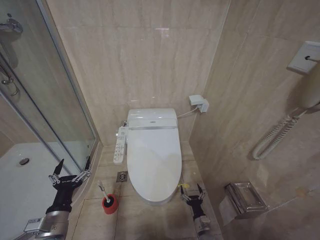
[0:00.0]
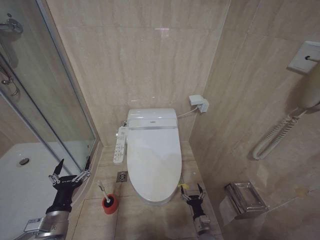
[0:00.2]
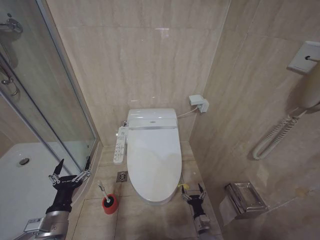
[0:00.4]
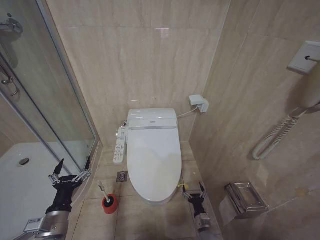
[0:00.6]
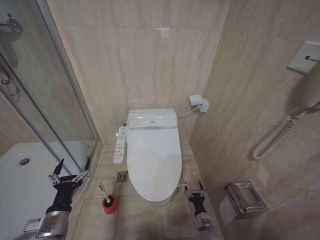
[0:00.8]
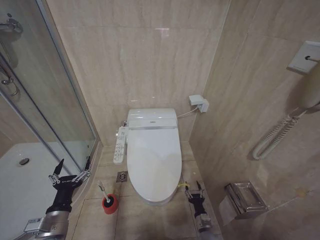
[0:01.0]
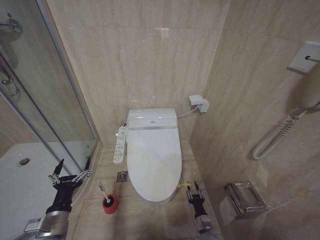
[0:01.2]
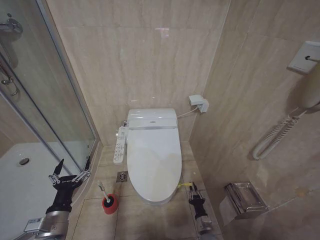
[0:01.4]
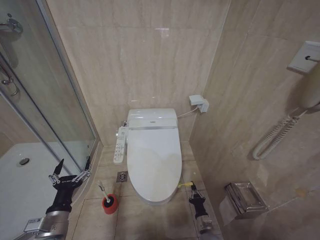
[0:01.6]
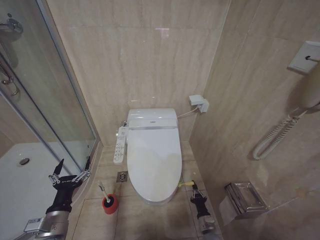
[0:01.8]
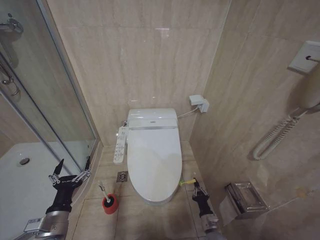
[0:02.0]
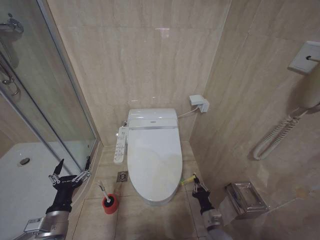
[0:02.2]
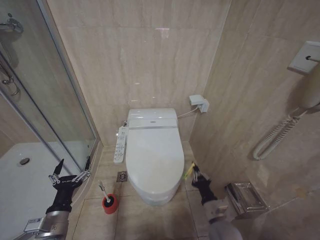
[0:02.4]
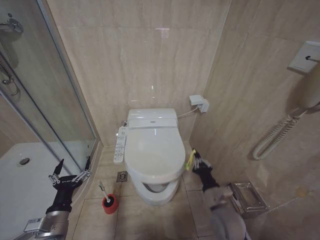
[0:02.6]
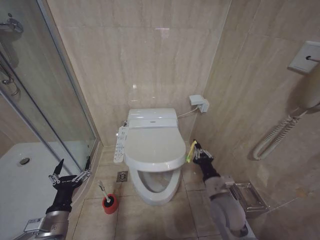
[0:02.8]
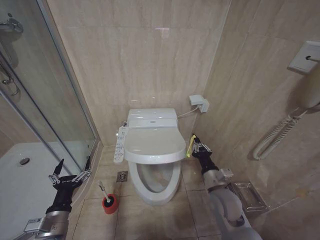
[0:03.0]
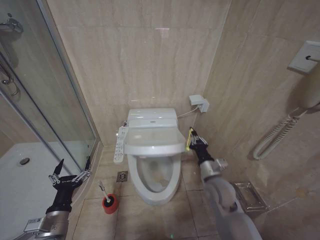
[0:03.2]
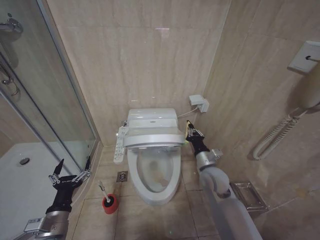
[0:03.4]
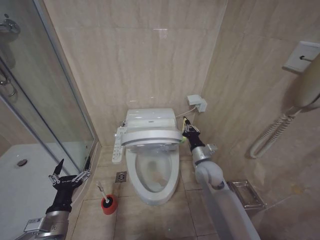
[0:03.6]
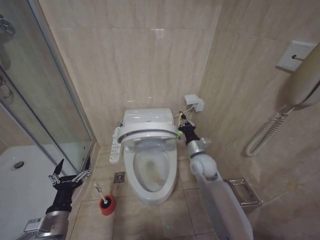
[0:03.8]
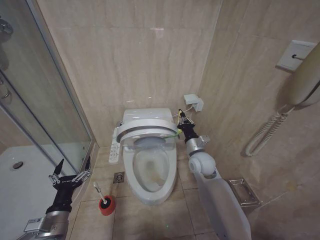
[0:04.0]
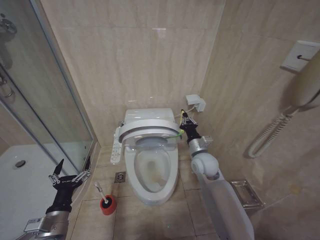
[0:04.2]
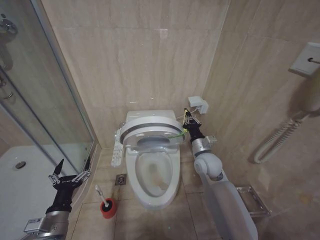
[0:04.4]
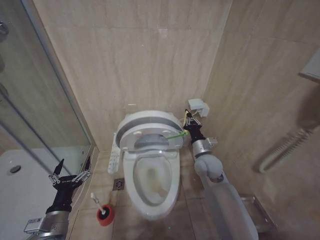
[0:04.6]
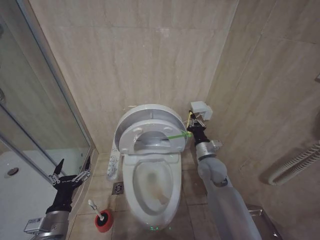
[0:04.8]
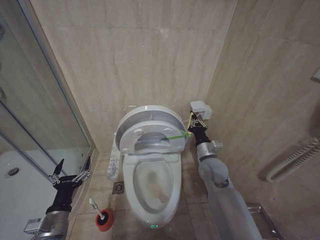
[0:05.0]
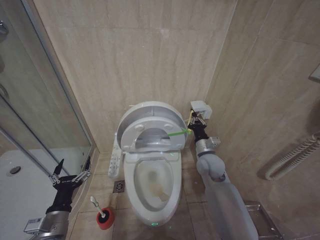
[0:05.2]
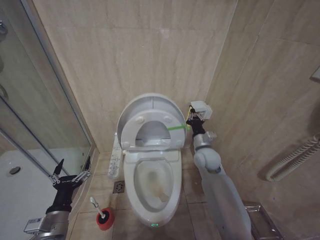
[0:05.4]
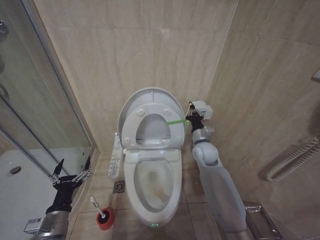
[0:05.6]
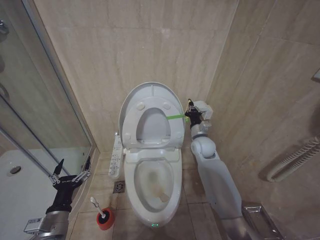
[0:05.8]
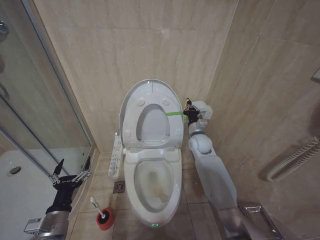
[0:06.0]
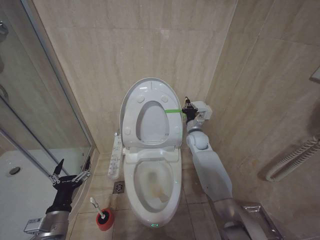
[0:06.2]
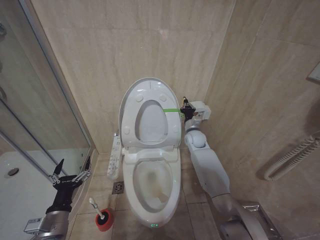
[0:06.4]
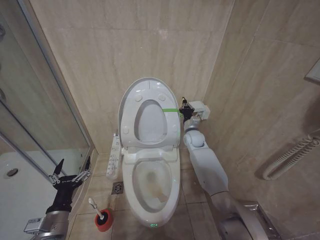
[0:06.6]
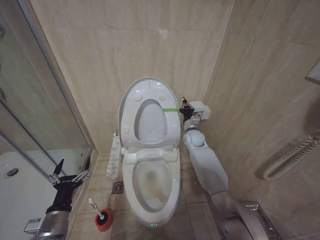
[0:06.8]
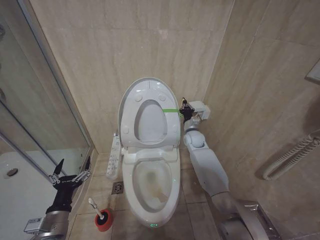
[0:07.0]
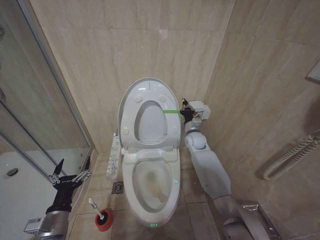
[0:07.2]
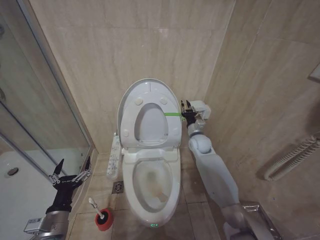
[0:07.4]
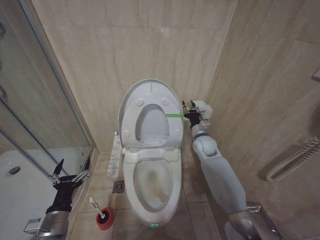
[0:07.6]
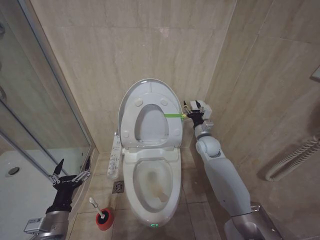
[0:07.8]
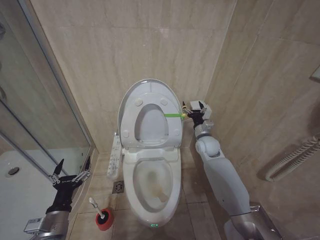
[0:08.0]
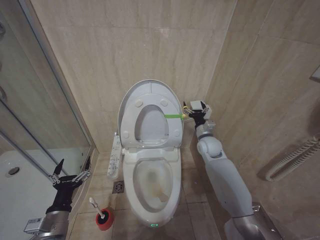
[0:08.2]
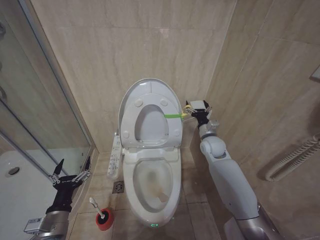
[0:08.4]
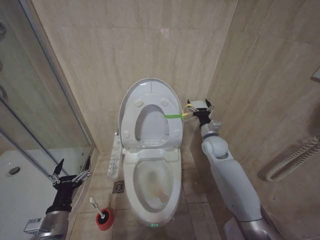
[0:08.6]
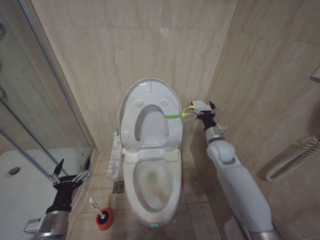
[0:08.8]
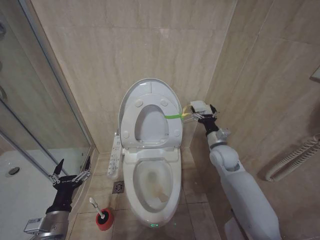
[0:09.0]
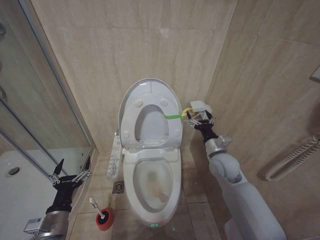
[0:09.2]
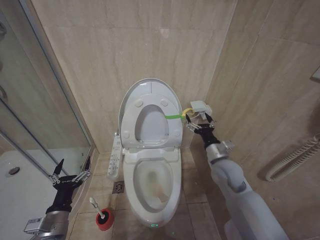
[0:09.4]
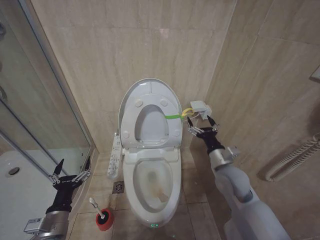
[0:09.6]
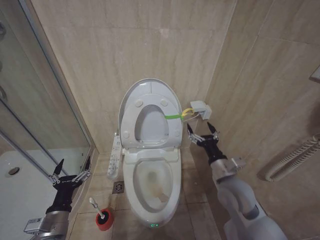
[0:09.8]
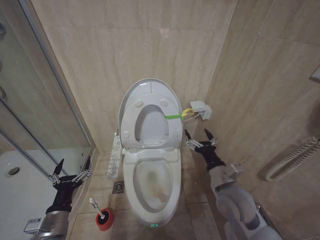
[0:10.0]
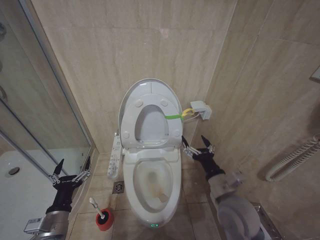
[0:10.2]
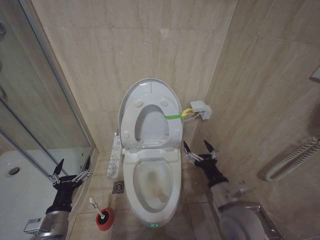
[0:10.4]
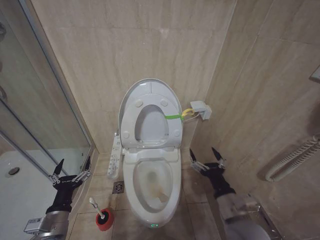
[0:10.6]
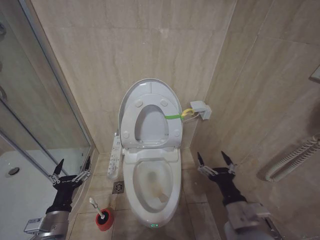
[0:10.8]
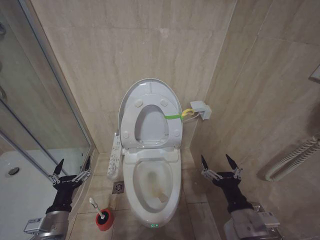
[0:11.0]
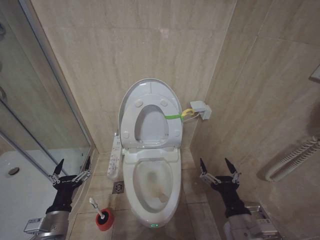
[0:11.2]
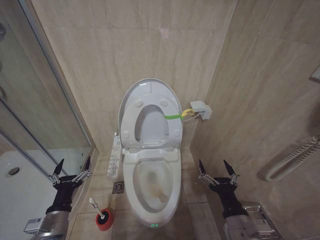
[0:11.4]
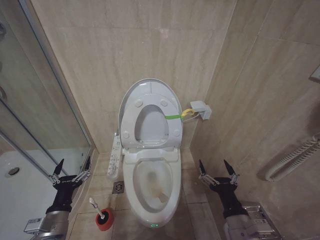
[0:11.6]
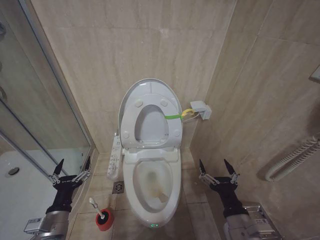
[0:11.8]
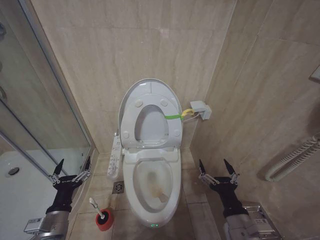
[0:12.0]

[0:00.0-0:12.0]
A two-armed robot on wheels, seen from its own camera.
Task of the whole recording: Open the toilet lid, clean the toilet bowl with a toilet brush, close the toilet lid, and flush.
0:01.6 to 0:03.0: The right gripper shifts approximately 30 cm upward.
0:03.0 to 0:04.4: The right gripper is displaced forward and upward by approximately 15 cm.
0:04.4 to 0:06.0: The right gripper goes roughly 10 cm forward.
0:06.0 to 0:07.6: The grippers stay close to where they were, moving slightly.
0:07.6 to 0:09.0: The right gripper is displaced backward by about 10 cm, and opens its fingers.
0:09.0 to 0:10.4: The right gripper is displaced backward by some 20 cm.
0:10.4 to 0:12.0: The right gripper travels backward by roughly 10 cm.

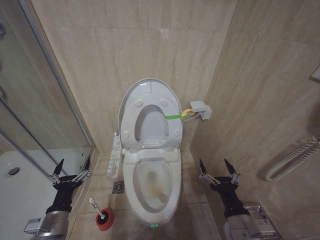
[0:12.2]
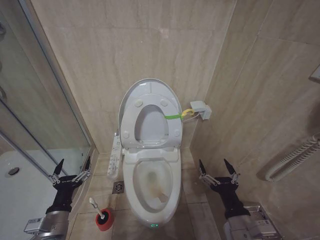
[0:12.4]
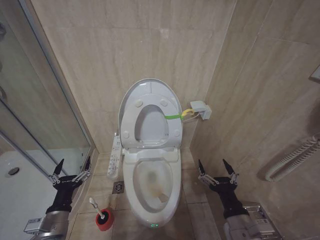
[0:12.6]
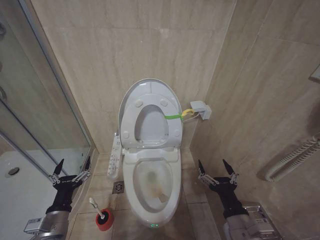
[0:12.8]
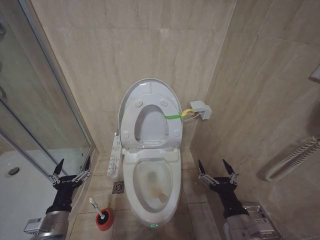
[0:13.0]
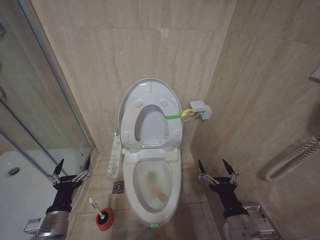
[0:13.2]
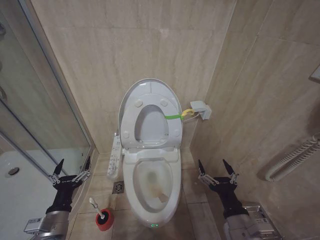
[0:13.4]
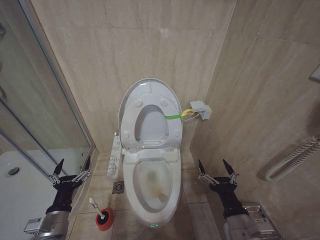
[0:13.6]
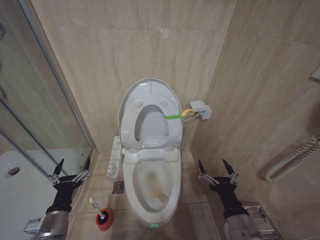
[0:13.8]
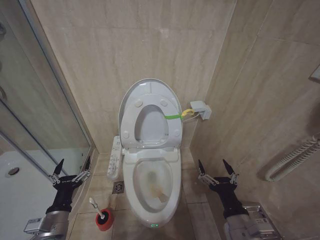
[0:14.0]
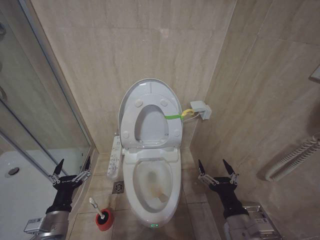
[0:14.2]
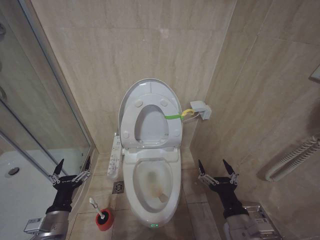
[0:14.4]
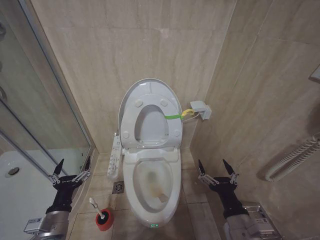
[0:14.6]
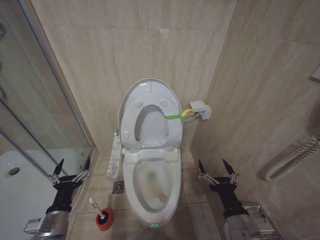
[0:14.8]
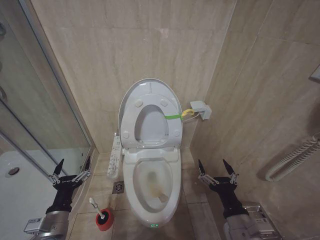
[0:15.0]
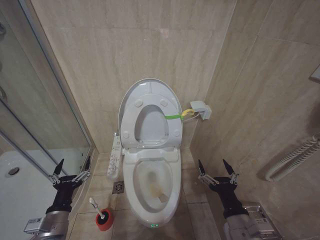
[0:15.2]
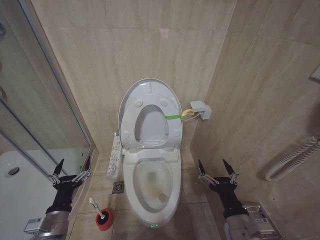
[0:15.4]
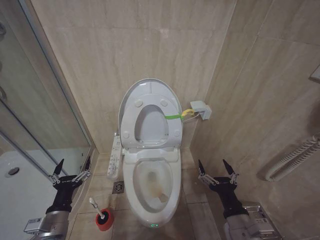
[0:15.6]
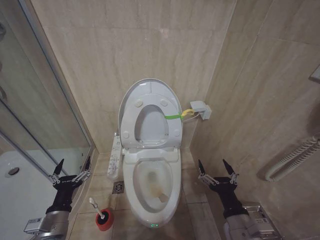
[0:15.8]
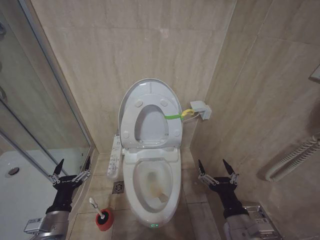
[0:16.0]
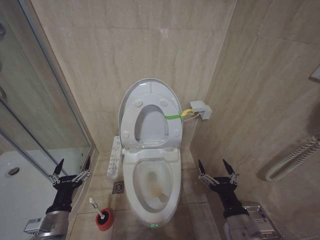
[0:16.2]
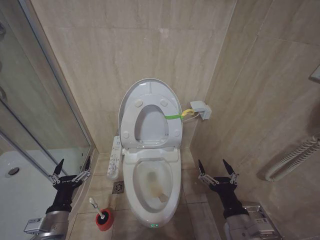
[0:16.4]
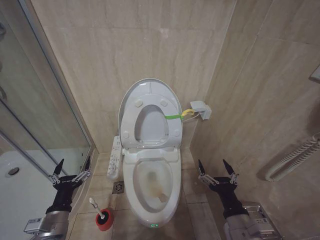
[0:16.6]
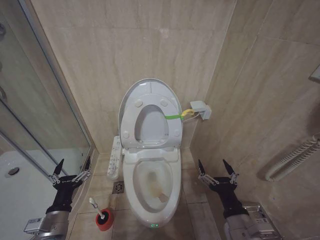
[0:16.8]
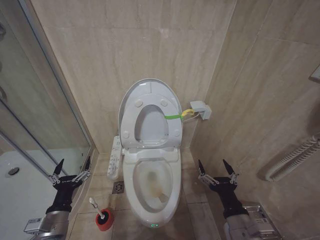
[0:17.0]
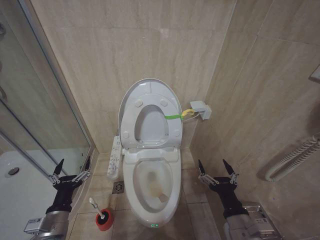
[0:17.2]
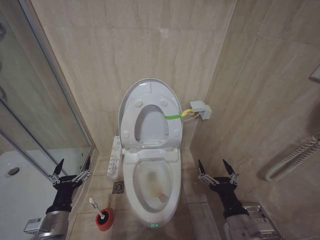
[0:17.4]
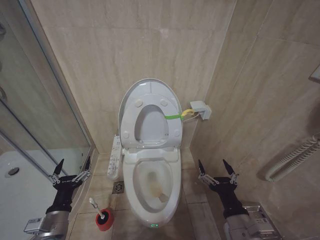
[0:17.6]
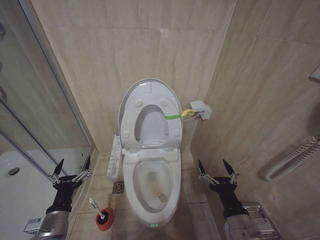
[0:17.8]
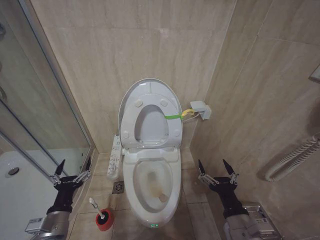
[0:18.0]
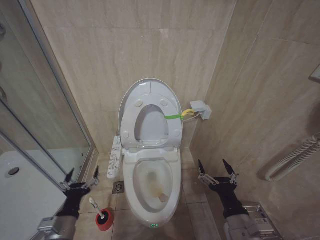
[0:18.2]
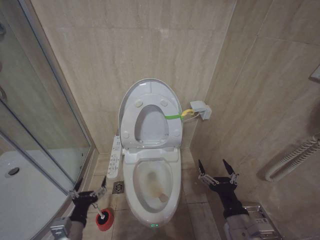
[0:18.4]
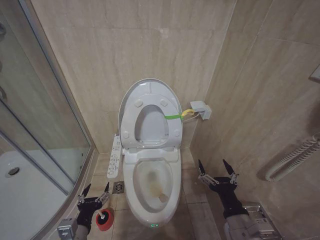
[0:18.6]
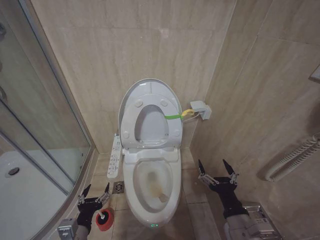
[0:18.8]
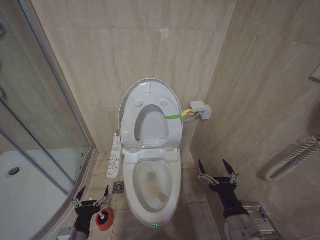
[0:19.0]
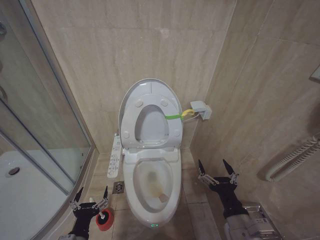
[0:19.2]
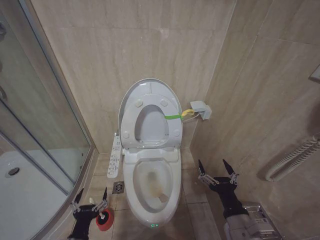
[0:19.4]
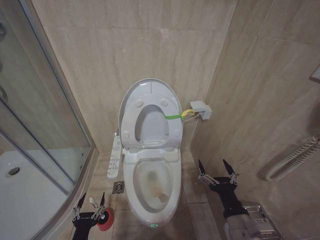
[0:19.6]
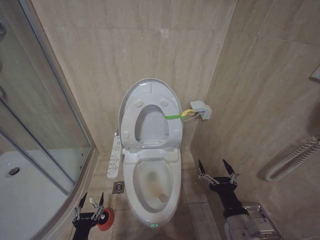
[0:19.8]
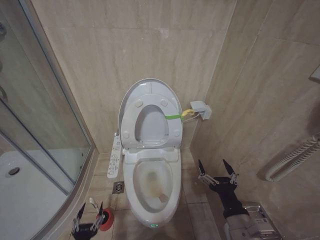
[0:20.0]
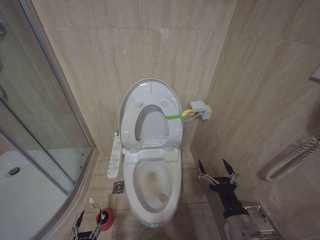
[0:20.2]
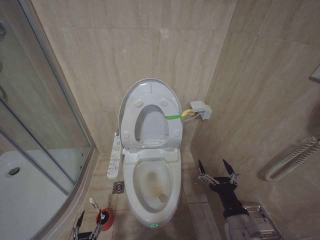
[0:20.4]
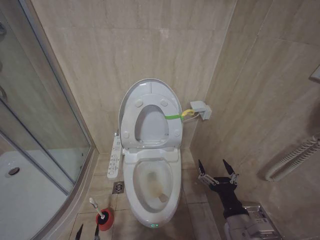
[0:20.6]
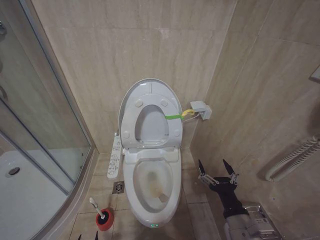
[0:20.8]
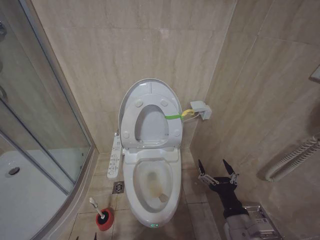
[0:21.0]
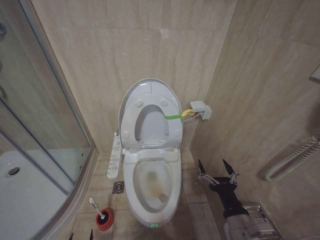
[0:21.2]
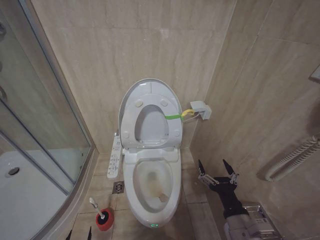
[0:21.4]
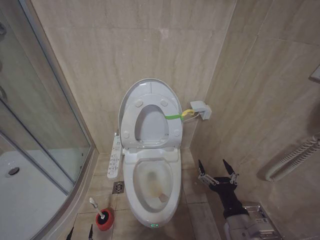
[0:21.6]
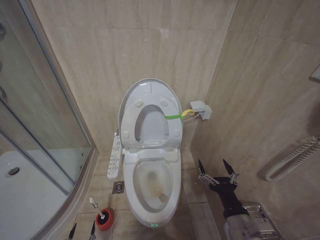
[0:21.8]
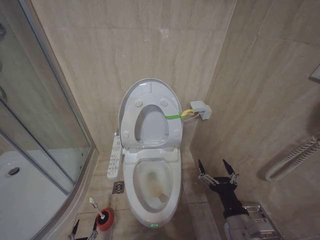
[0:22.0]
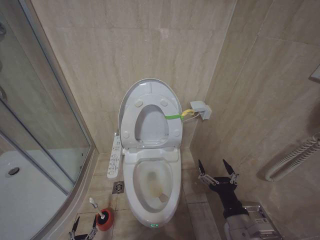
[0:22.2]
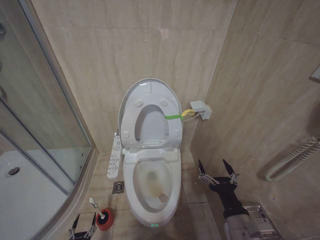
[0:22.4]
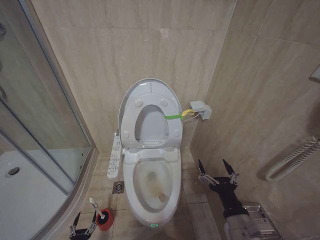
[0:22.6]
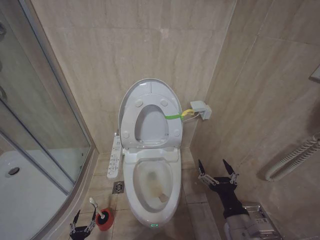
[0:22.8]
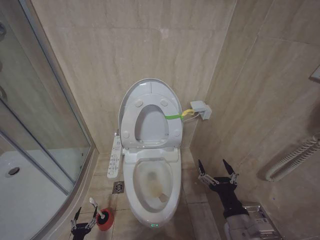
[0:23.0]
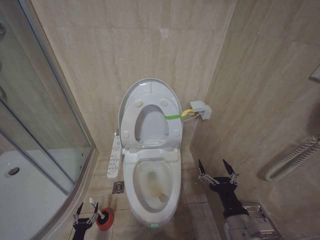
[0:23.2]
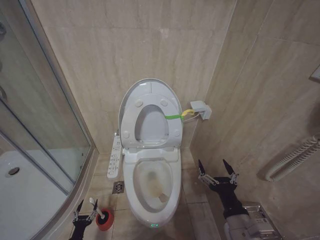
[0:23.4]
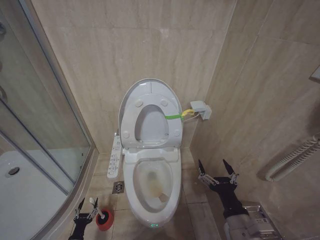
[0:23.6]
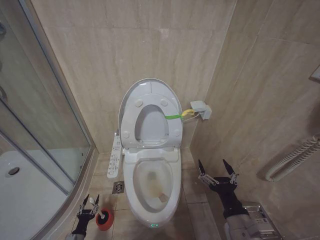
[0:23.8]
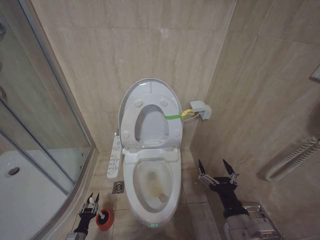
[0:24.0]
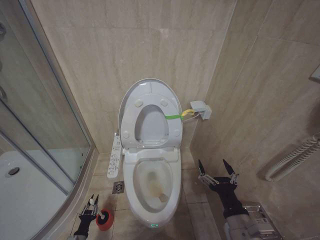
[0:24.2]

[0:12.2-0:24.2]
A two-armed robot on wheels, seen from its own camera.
Task of the whole recording: Open the toilet lid, clean the toilet bowl with a toilet brush, close the toilet lid, and flush.
0:12.2 to 0:16.6: Both grippers stay about where they are.
0:16.6 to 0:18.2: The grippers move only a little.
0:18.2 to 0:19.8: The left gripper shifts some 10 cm downward and backward.
0:19.8 to 0:21.2: The left gripper goes about 20 cm downward.
0:22.6 to 0:24.2: The left gripper travels forward by some 10 cm, and closes up.
